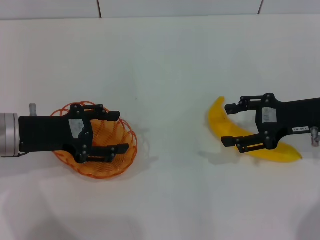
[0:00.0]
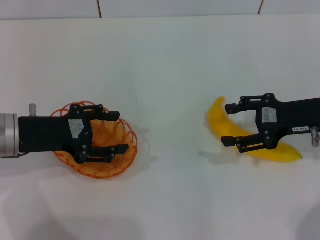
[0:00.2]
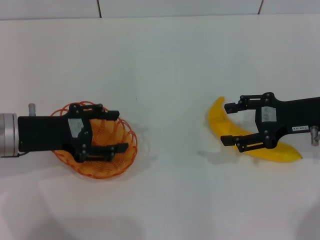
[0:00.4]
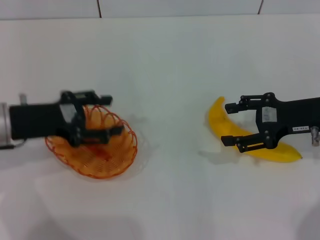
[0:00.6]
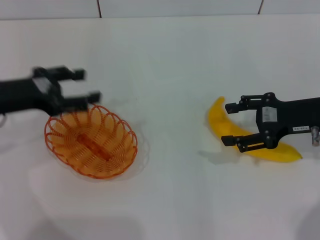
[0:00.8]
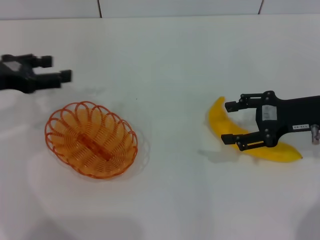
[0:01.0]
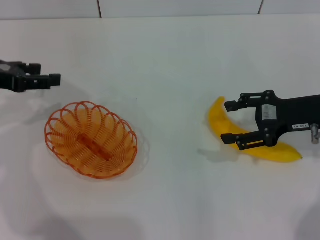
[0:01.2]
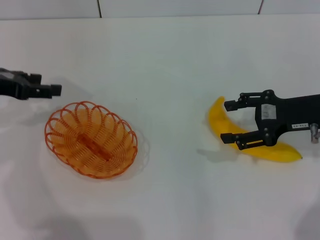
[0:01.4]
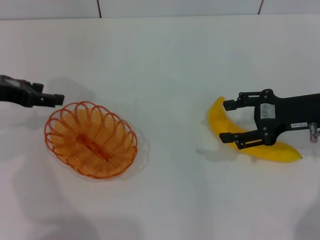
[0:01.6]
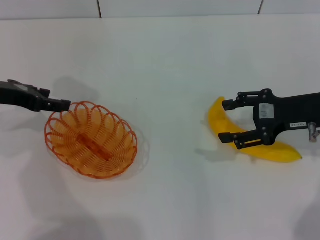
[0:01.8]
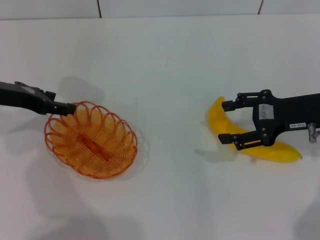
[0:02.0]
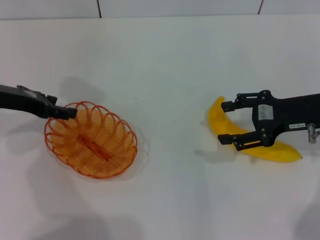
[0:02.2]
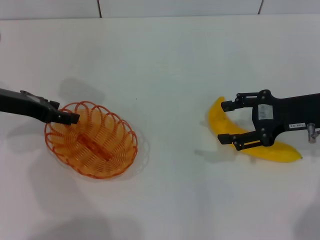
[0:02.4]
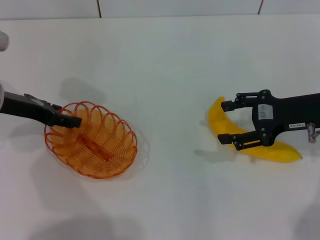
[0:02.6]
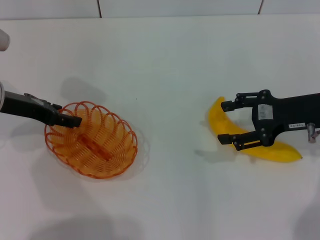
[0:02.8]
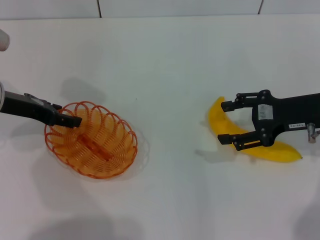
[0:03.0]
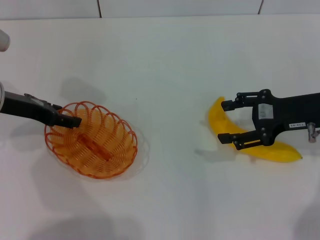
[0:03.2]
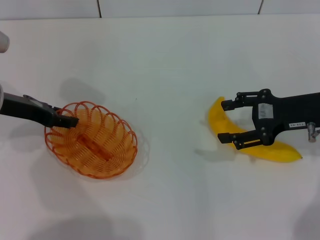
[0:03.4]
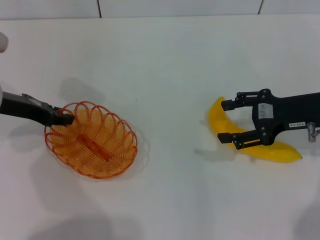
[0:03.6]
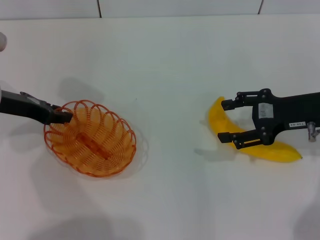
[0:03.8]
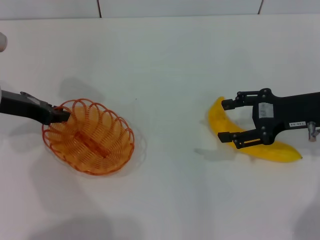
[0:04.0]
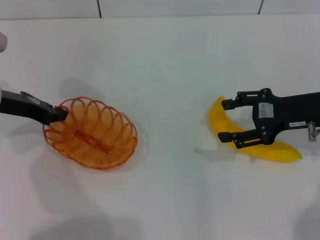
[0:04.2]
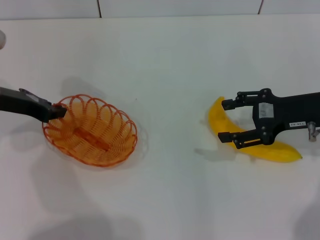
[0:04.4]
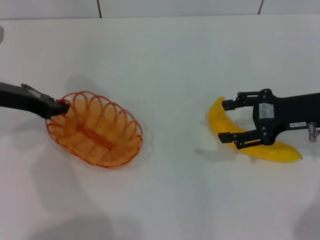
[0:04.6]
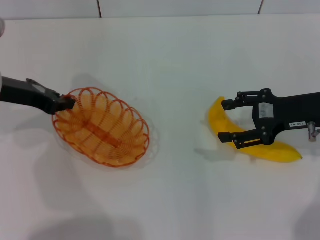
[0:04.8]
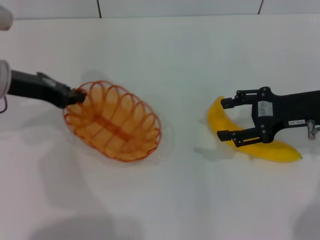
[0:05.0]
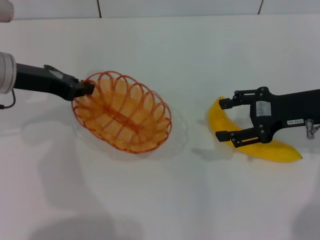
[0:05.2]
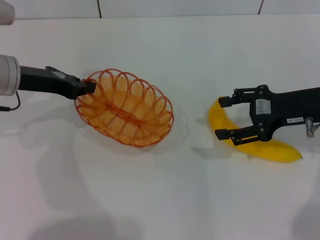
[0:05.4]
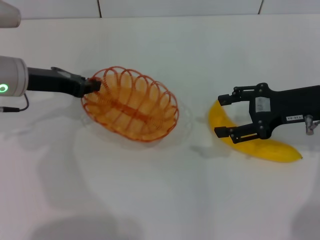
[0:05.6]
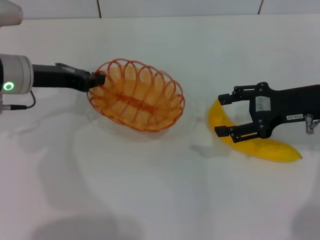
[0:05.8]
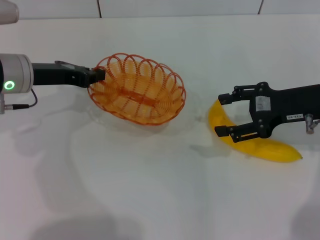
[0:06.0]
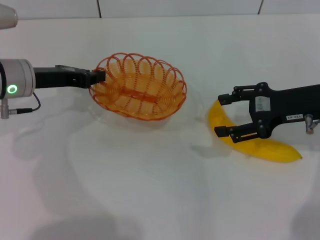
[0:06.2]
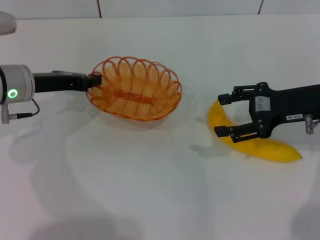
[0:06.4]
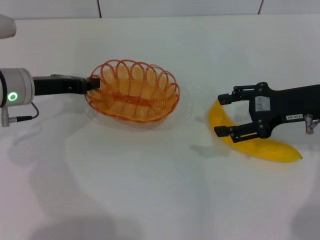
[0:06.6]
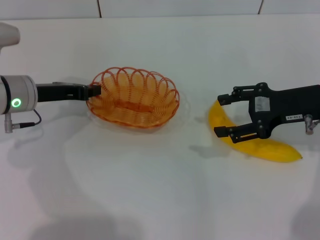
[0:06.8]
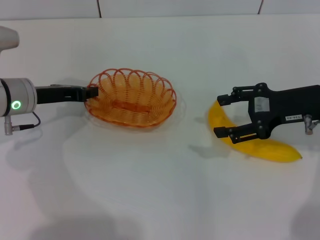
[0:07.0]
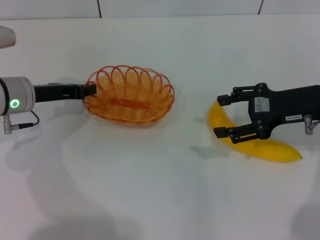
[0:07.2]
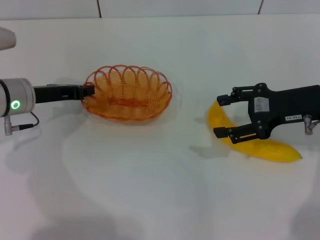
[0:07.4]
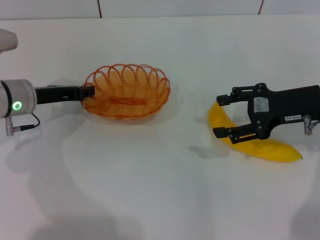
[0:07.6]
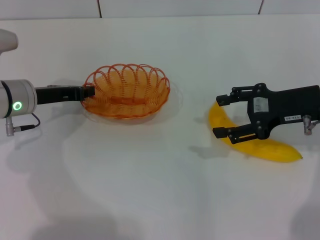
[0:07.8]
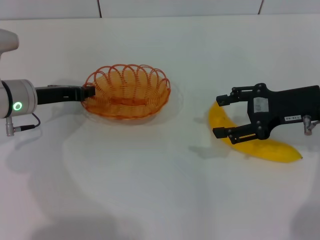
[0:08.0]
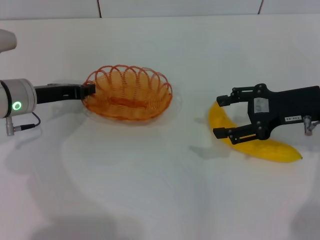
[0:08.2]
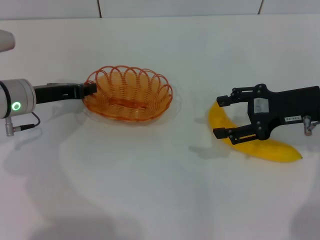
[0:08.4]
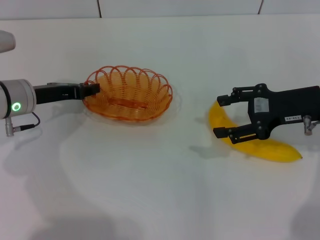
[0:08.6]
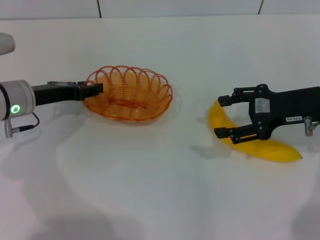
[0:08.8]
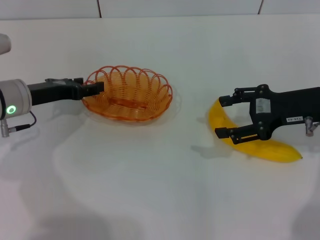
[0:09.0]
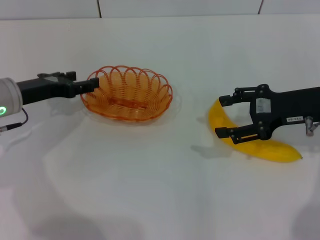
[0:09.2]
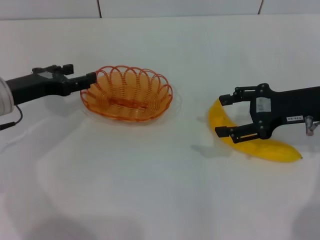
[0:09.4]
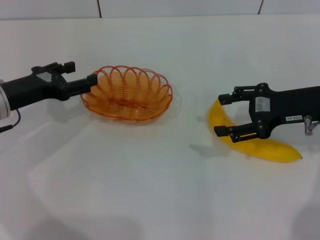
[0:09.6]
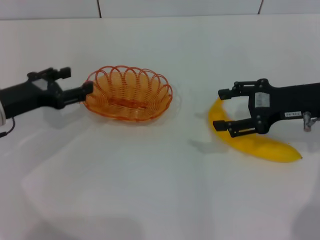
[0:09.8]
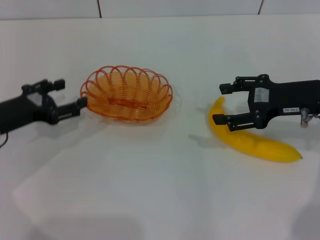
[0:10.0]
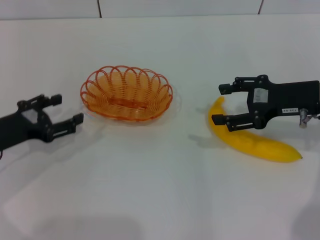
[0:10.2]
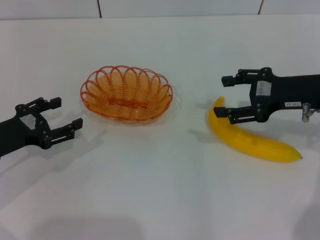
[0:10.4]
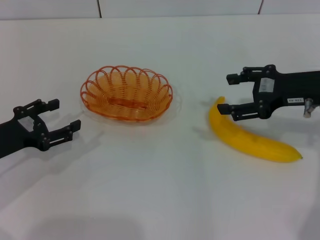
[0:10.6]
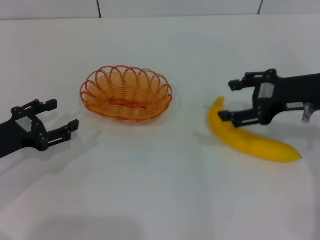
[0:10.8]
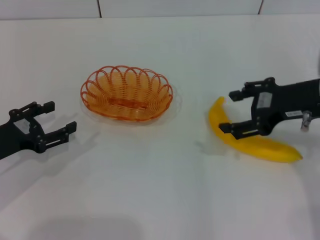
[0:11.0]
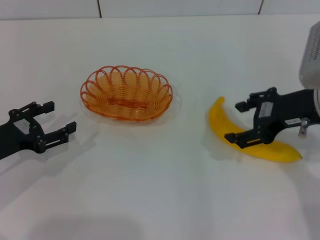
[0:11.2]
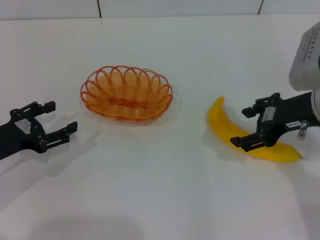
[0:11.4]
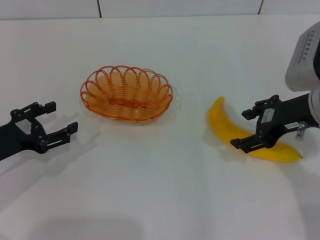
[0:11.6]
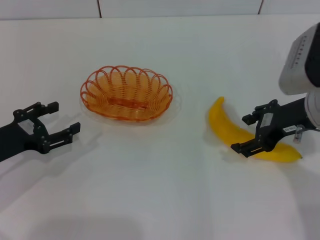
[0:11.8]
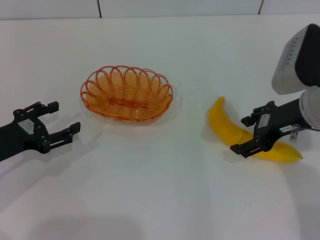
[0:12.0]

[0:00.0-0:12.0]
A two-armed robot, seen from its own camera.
Step, 0:00.0 to 0:05.0: Pick up the basket with the left gripper.
Step, 0:05.2 to 0:09.4: Place the basket in the center of view with the left gripper.
0:00.0 to 0:01.6: The left gripper travels to the left and forward by approximately 10 cm.
0:01.6 to 0:03.0: There are only small adjustments of the grippers.
0:03.0 to 0:04.4: The left gripper closes.
0:06.0 to 0:07.6: The grippers make only small movements.
0:07.6 to 0:09.0: The left gripper opens its fingers.
0:09.0 to 0:10.4: The left gripper shifts approximately 10 cm backward and to the left, and opens up.

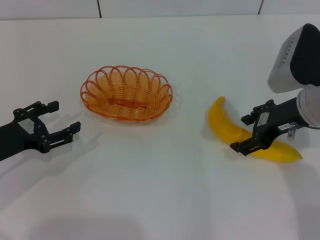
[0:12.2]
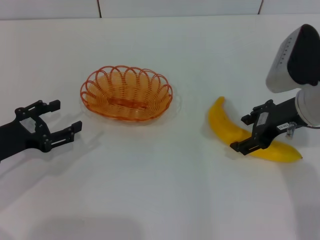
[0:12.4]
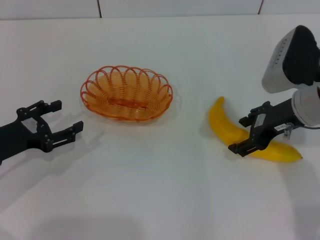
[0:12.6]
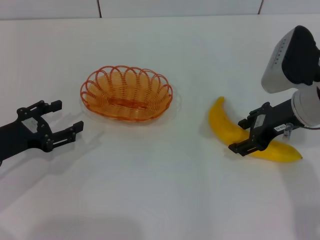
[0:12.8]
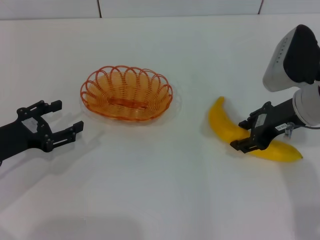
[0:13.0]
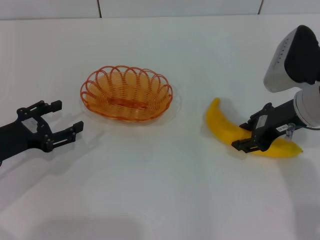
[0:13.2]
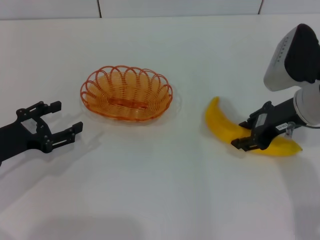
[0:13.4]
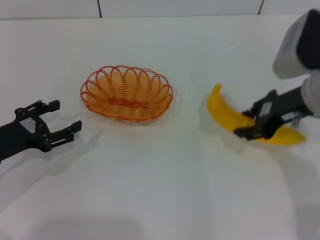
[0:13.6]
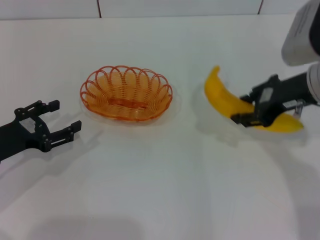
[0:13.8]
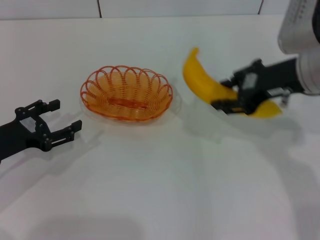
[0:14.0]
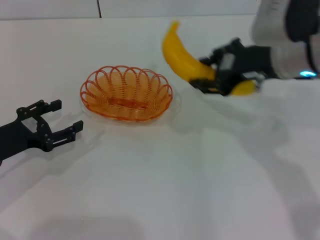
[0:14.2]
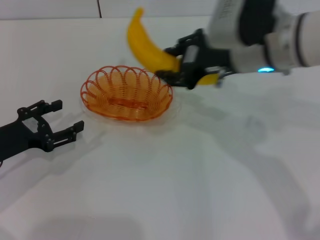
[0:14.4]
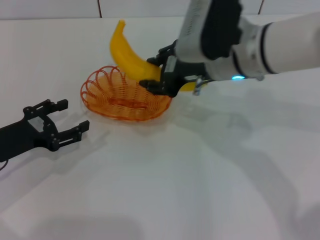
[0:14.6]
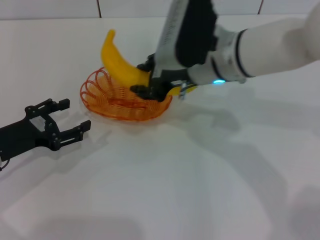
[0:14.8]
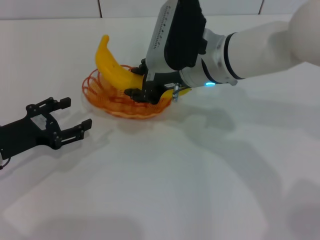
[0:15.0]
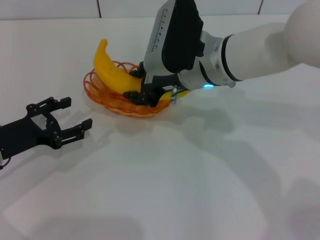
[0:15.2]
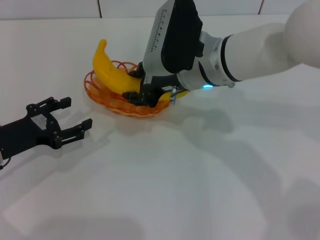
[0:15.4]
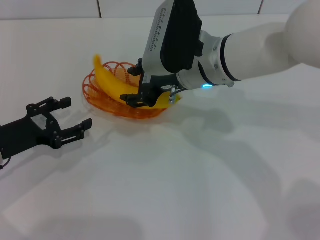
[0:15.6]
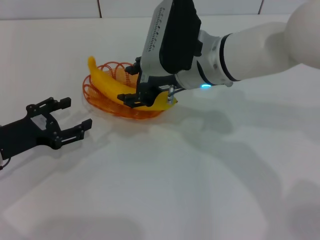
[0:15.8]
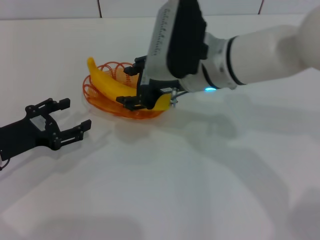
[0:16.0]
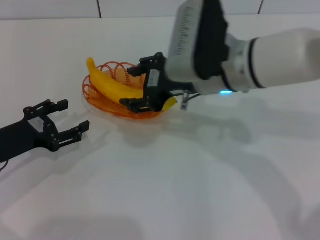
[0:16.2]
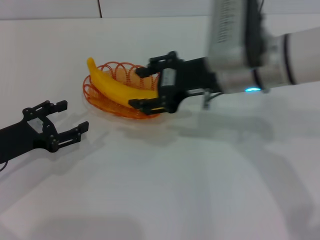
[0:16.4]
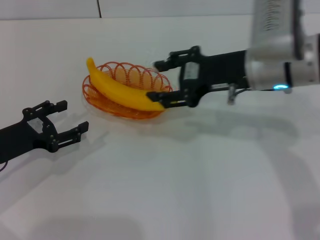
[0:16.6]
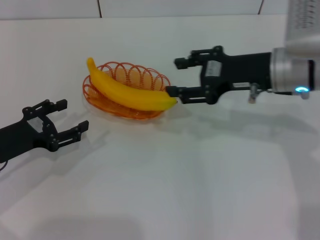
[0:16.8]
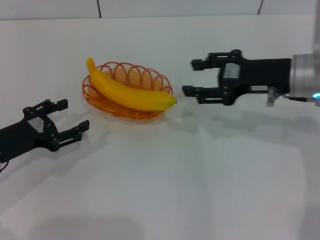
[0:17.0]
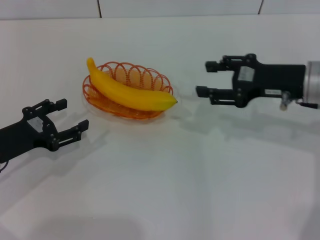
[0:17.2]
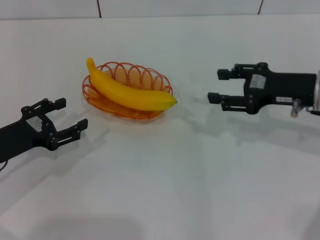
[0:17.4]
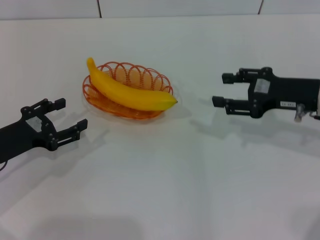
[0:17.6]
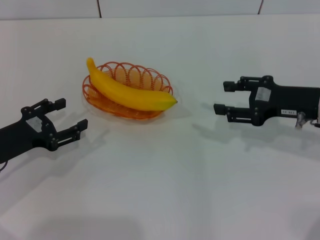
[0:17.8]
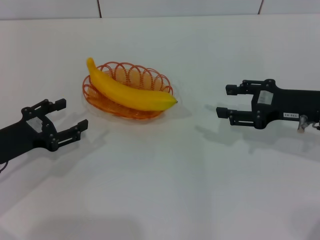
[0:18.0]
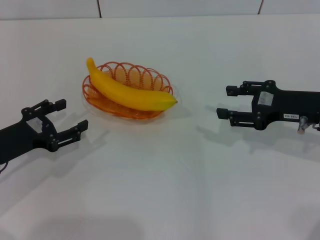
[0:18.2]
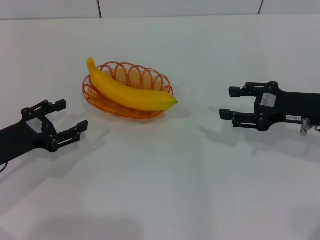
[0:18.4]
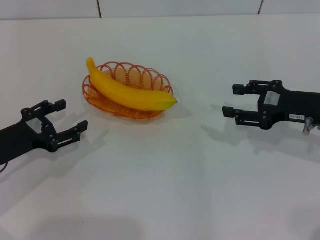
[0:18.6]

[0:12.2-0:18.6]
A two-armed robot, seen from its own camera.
Step, 0:14.0 to 0:16.2: Place the banana into the basket with the right gripper.
0:12.2 to 0:13.8: The right gripper closes its fingers.
0:13.8 to 0:15.4: The right gripper heads to the left, covering approximately 15 cm.
0:15.4 to 0:17.0: The right gripper travels to the right by some 15 cm, and opens up.
0:17.0 to 0:18.6: The right gripper heads to the right, covering roughly 5 cm.
